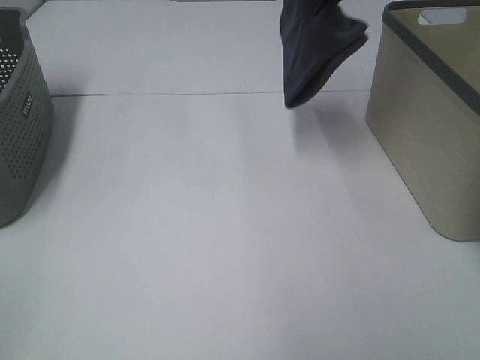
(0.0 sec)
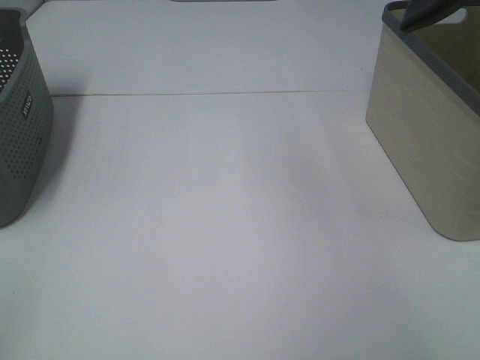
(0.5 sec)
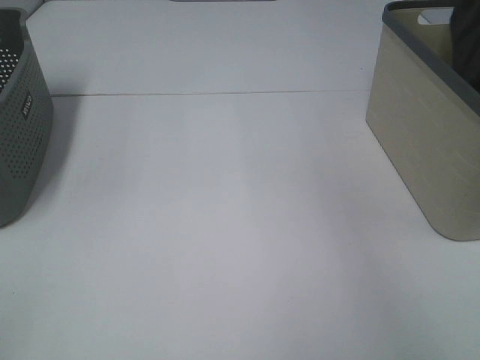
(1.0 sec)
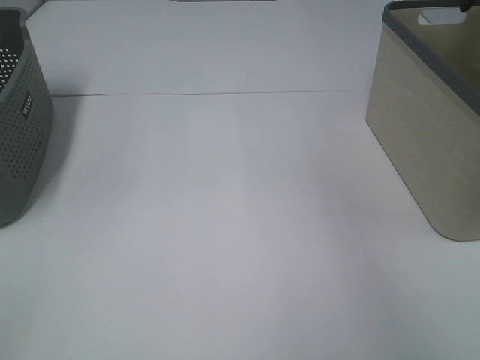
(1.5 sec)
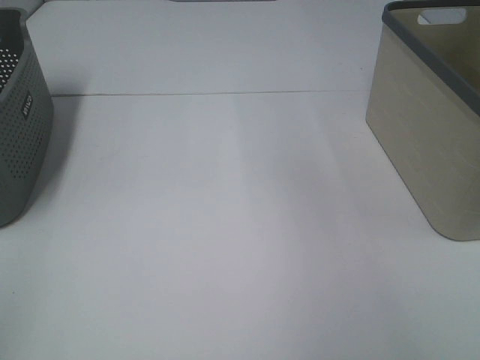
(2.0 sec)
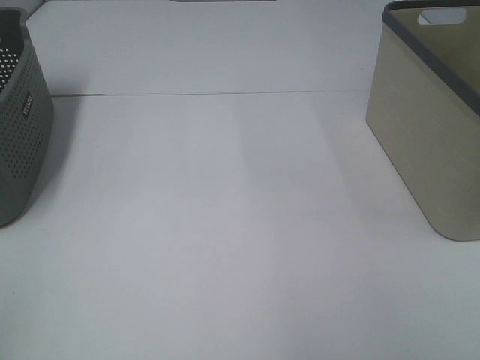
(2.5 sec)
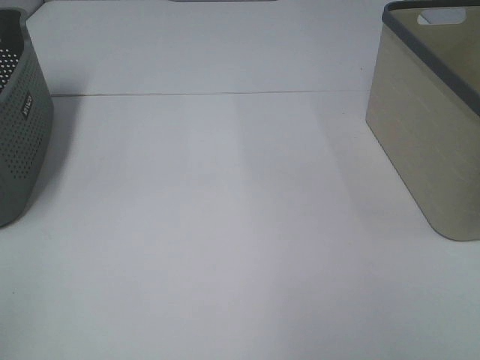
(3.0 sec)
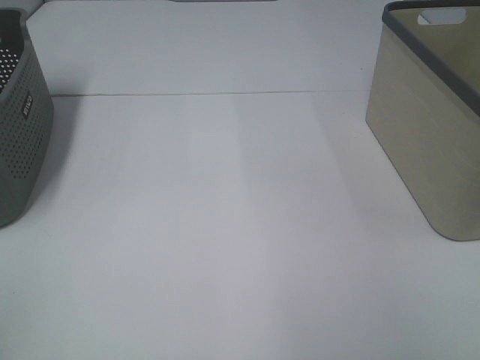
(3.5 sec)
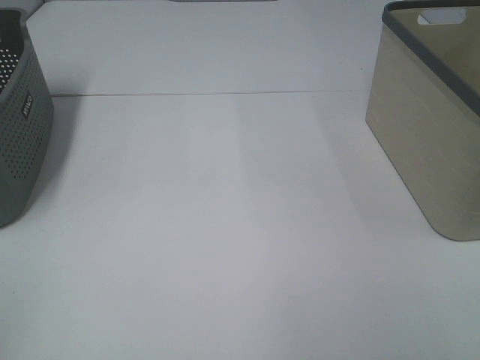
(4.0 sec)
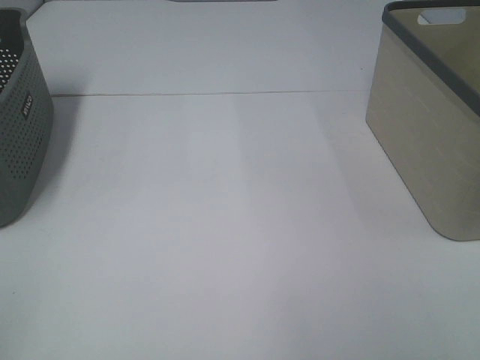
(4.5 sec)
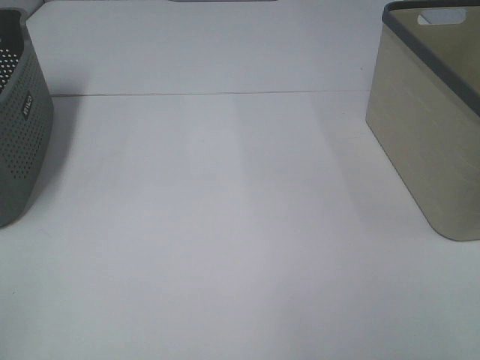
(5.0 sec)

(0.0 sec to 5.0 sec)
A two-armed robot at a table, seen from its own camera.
0.0 sec - 2.5 sec: The right gripper goes some 20 cm backward and upward, reaches some 20 cm to the right, then returns, and opens its fingers.
